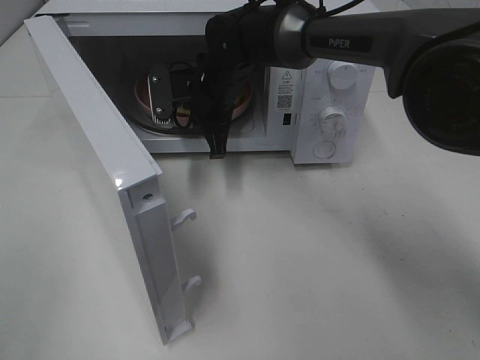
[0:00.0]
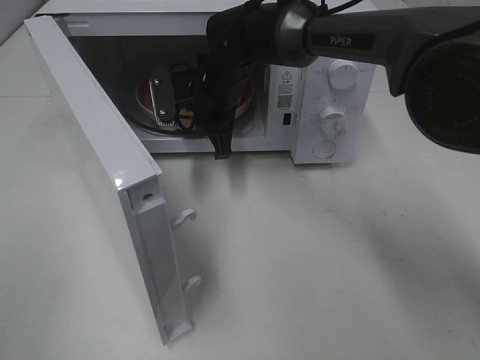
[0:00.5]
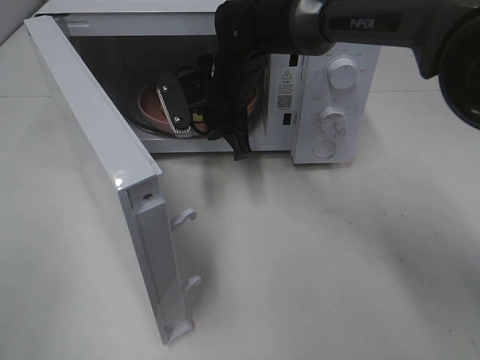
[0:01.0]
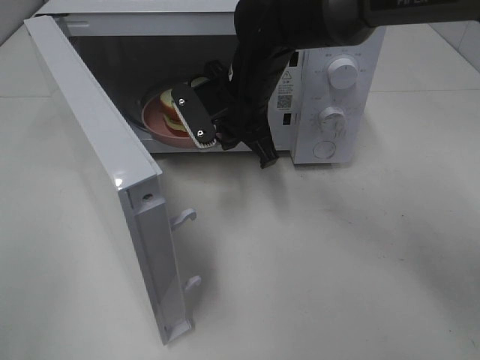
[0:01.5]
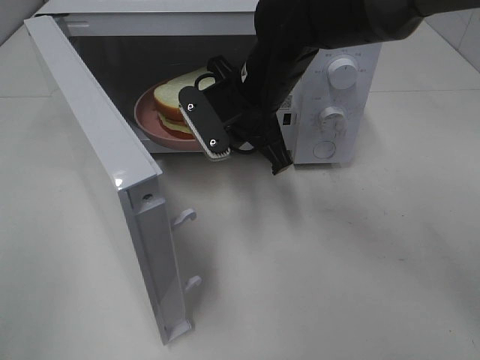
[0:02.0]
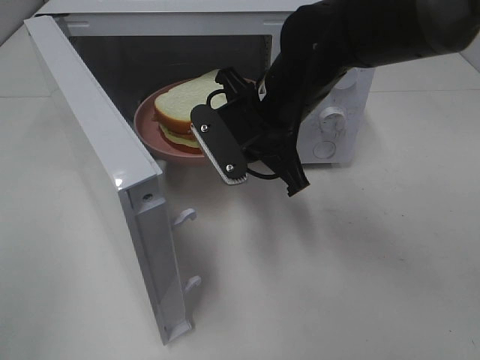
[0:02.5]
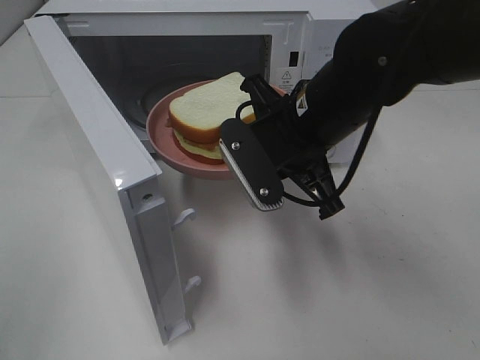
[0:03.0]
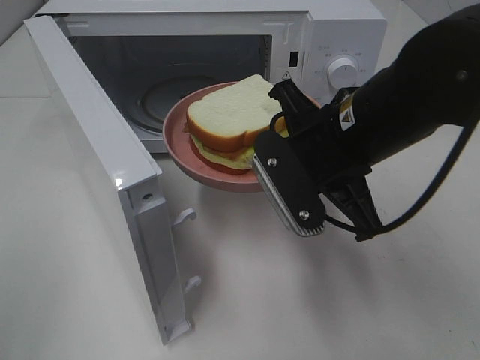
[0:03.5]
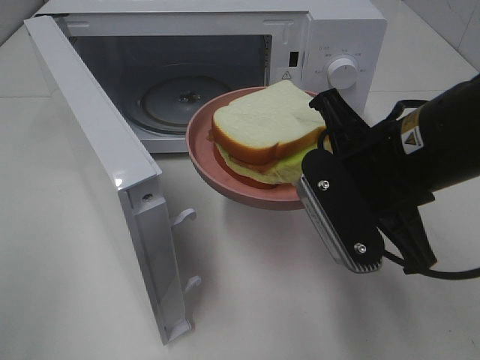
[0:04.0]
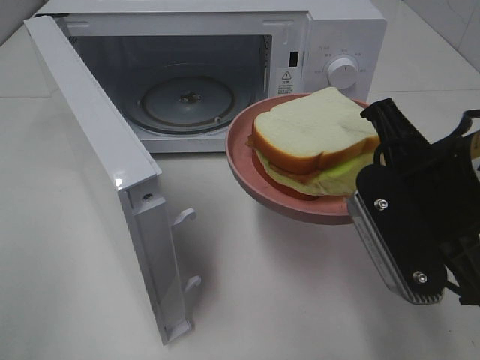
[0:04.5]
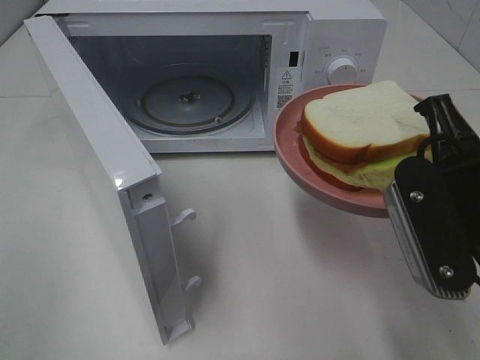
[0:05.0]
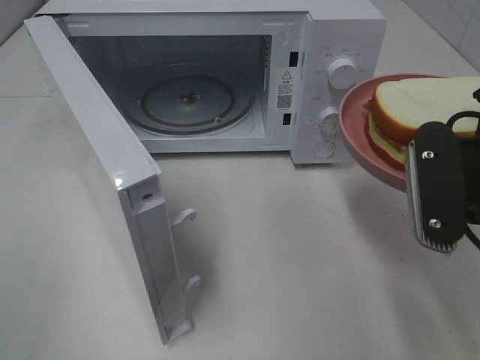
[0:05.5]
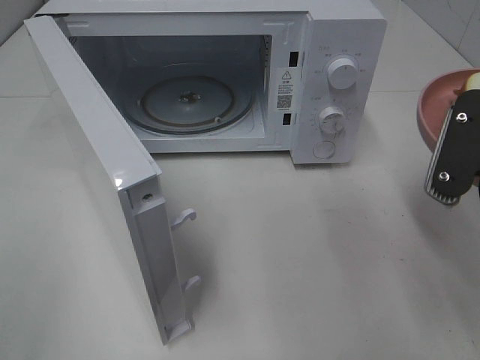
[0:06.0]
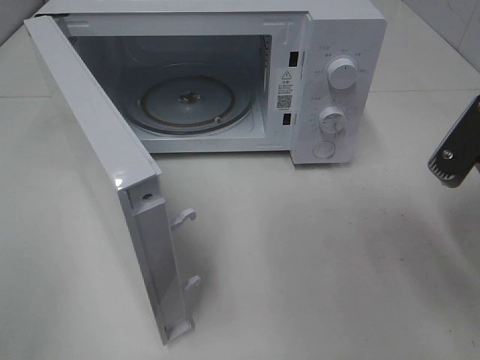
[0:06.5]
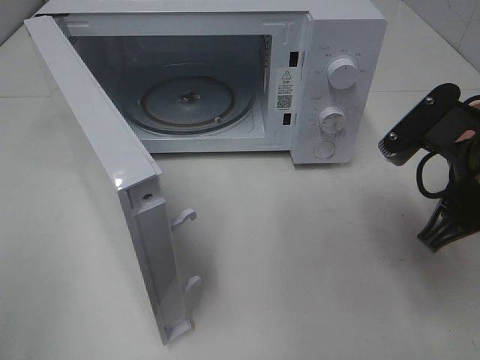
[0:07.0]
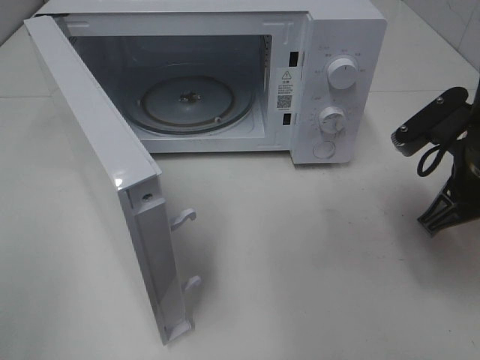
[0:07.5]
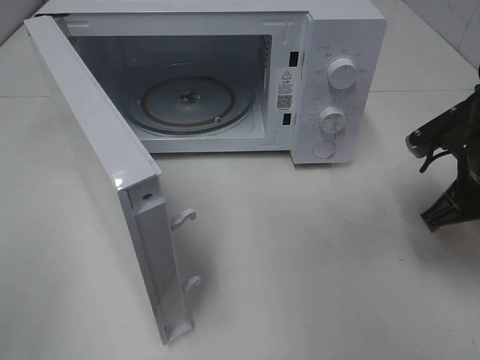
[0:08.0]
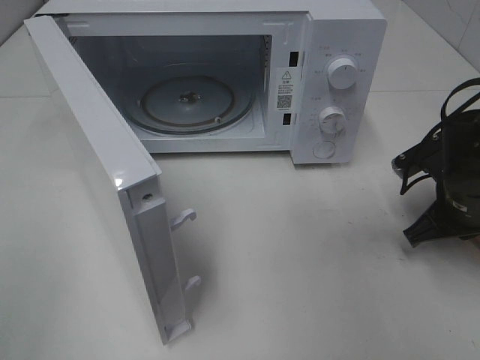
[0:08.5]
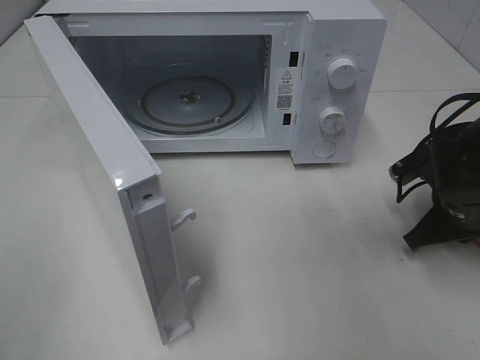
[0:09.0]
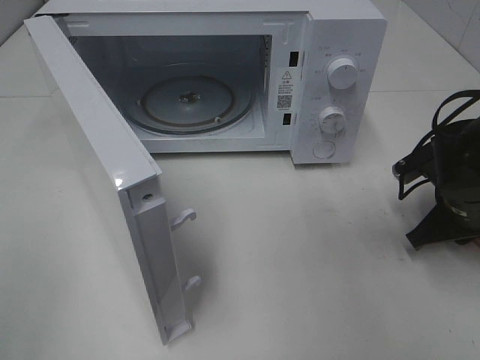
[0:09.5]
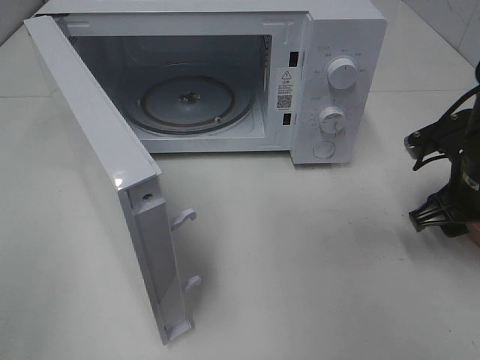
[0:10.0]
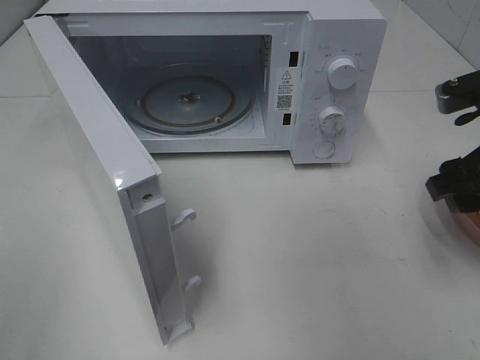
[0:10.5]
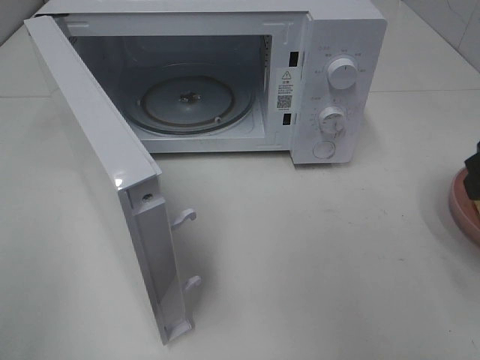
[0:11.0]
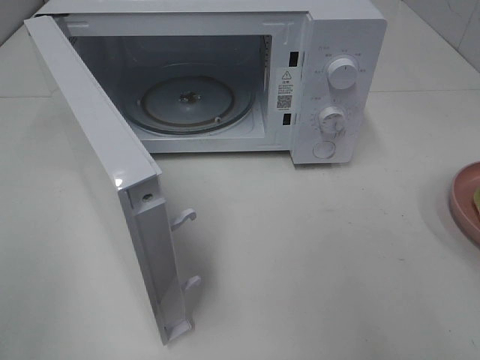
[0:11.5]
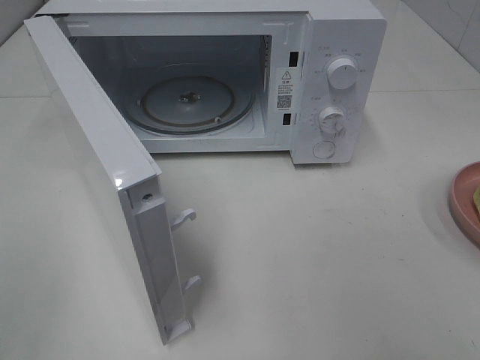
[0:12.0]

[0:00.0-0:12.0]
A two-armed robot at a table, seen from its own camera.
Task of the whole recording: Heat Sandwich.
Step, 0:00.5 to 0:10.0: Right hand: place the plate on the table.
0:00.0 to 0:02.0: The right gripper travels backward by approximately 10 cm.
0:02.0 to 0:04.0: The right gripper goes approximately 20 cm backward and to the right.
0:04.0 to 0:06.0: The right gripper heads to the right, covering approximately 10 cm.
0:06.0 to 0:08.0: The right gripper moves forward and downward, some 15 cm.
0:08.0 to 0:10.0: The right gripper opens up.
0:10.0 to 0:12.0: The right gripper goes some 25 cm backward and upward.

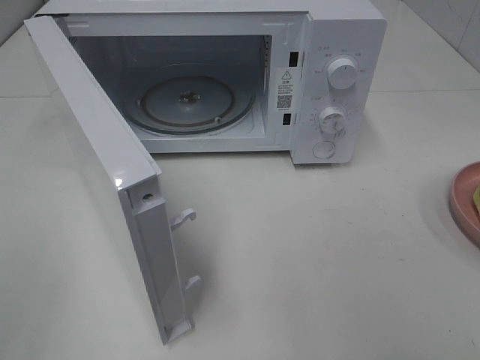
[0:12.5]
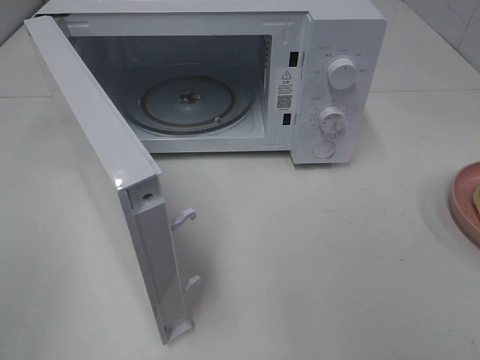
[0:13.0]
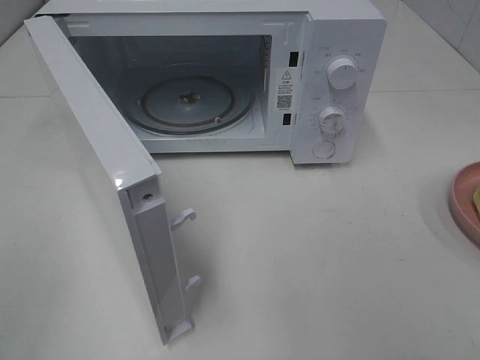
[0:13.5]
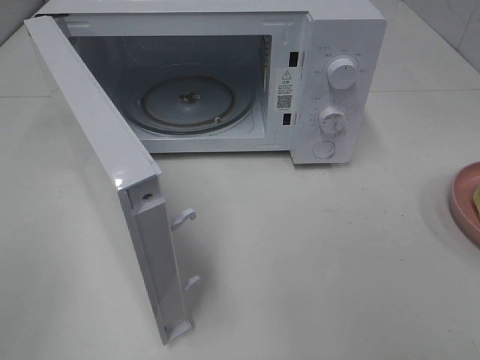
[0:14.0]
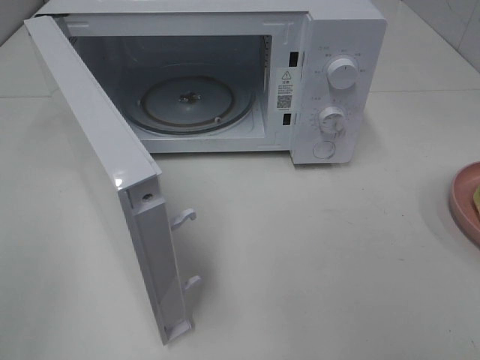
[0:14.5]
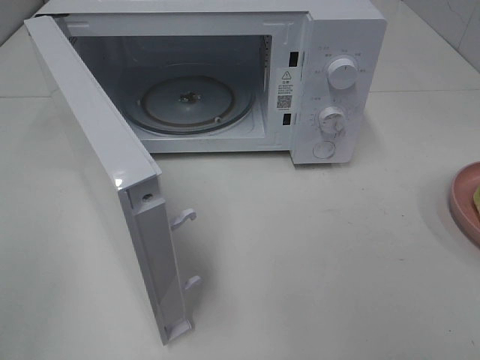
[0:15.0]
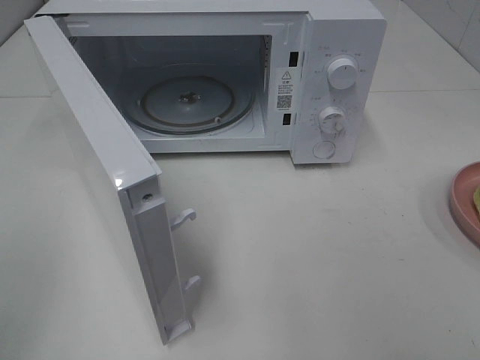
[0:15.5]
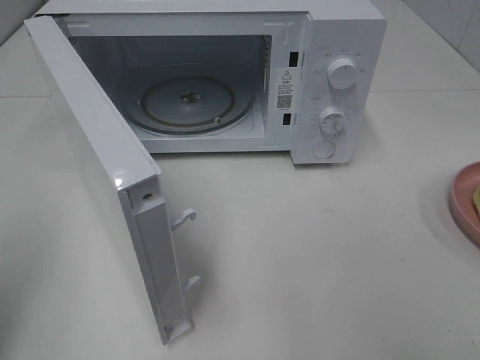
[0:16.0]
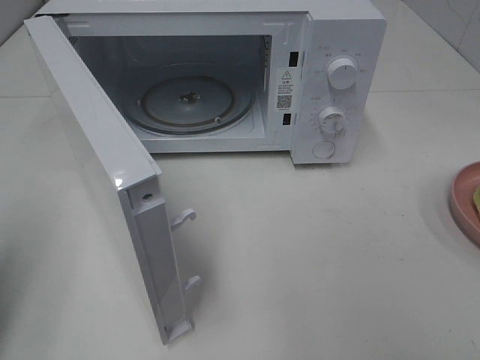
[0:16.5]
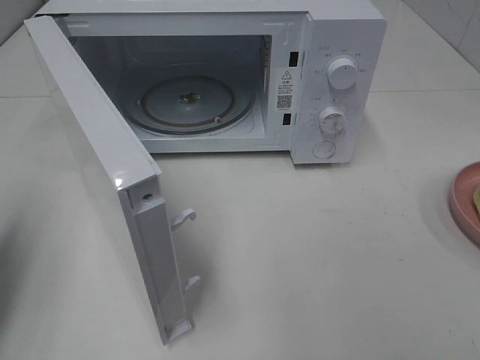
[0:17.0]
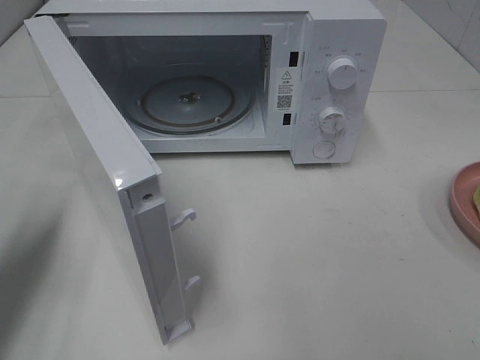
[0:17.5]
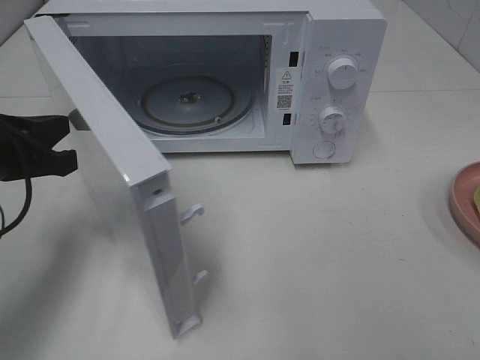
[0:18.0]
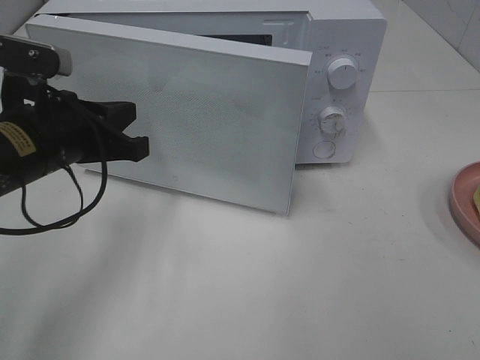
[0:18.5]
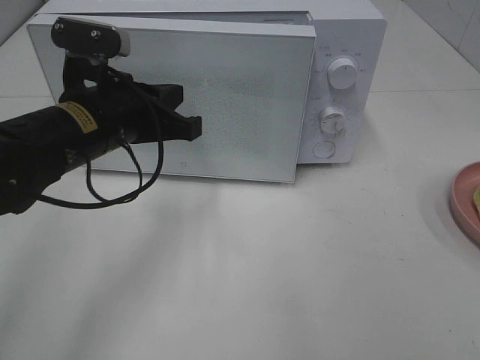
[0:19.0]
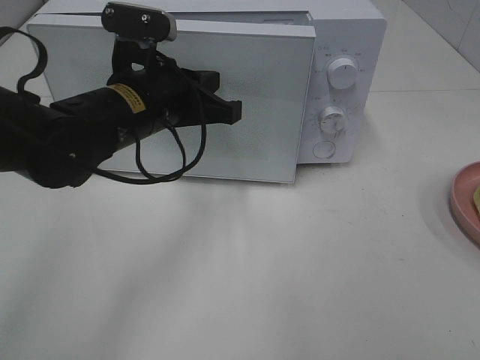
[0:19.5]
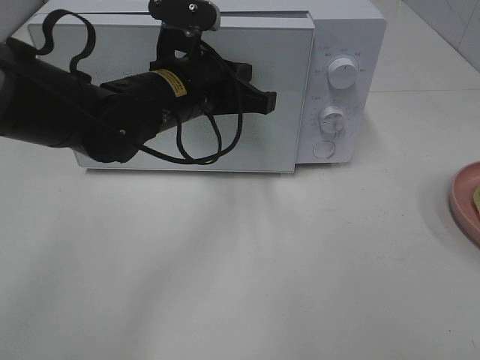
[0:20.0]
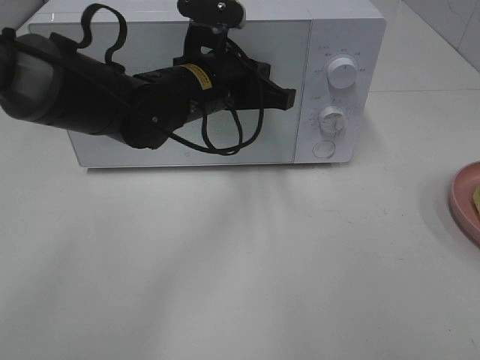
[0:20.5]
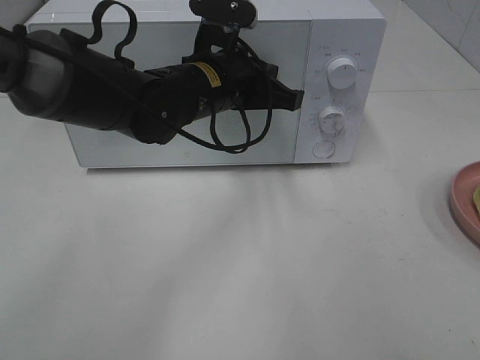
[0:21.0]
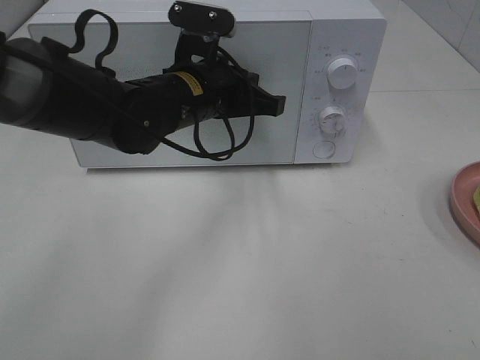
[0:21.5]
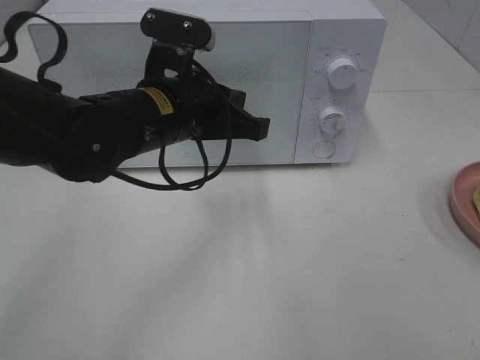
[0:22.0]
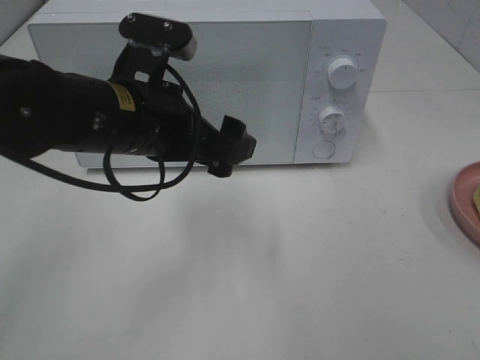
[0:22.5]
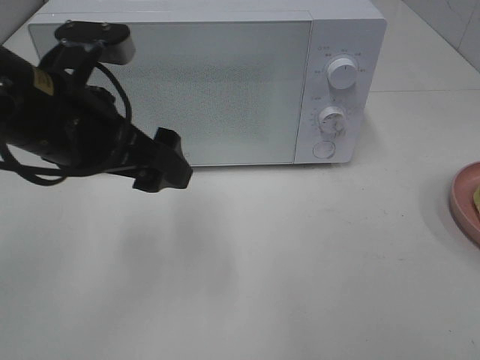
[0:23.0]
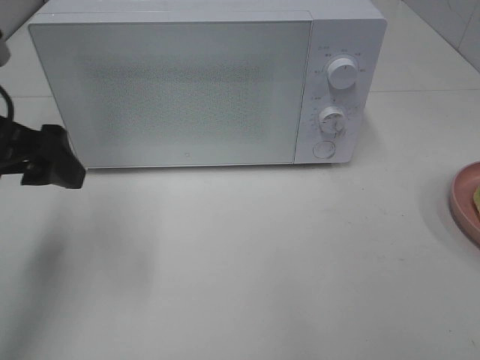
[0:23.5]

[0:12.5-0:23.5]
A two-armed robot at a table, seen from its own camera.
Task of the whole recording: Heat Sandwich.
Step, 0:12.5 to 0:22.0: Left hand: close the microwave door.
0:16.0 to 0:18.0: The left gripper goes roughly 20 cm forward, downward and to the right.
0:18.0 to 0:20.0: The left gripper heads to the right and forward, covering approximately 20 cm.
0:20.0 to 0:21.5: There are only small adjustments of the grippers.
0:21.5 to 0:23.5: The left gripper goes approximately 20 cm to the left and backward, and opens up.

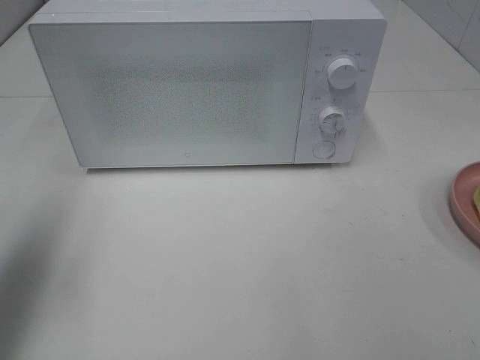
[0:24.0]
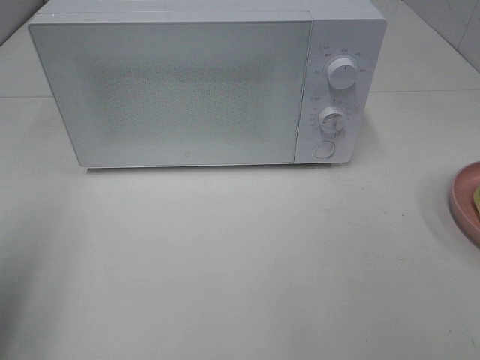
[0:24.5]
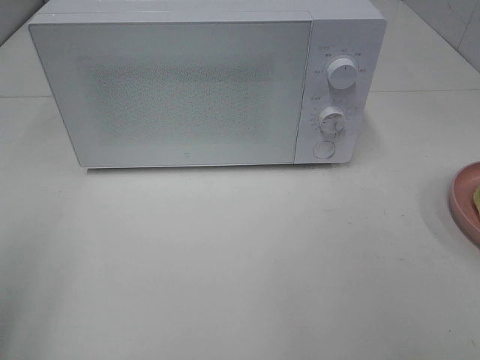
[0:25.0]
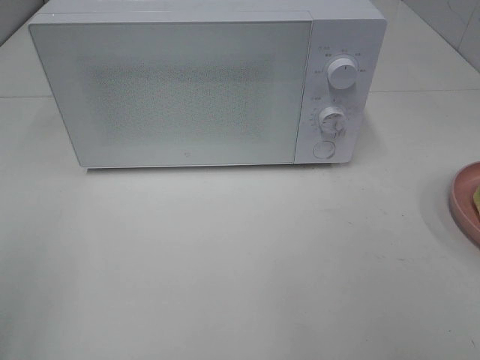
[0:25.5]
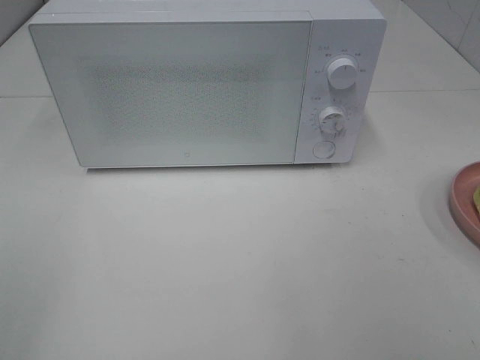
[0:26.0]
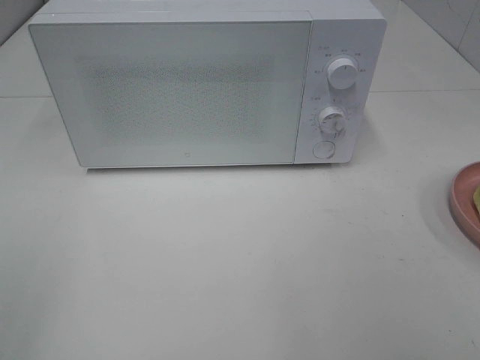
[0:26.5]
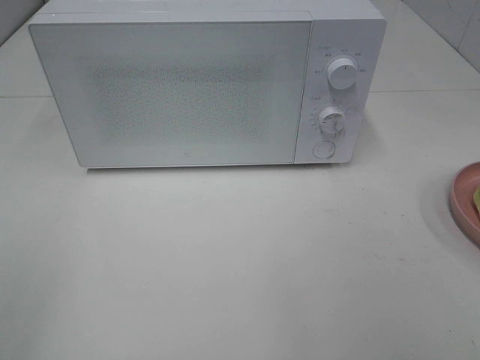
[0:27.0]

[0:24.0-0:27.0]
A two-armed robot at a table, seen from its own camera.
Task of the whole recording: Heat Sandwich.
0:24.0 to 0:25.5: The left gripper heads backward, covering roughly 15 cm.
